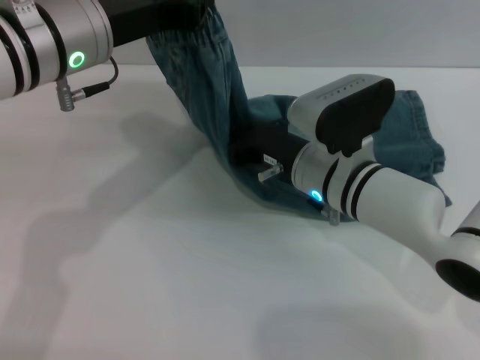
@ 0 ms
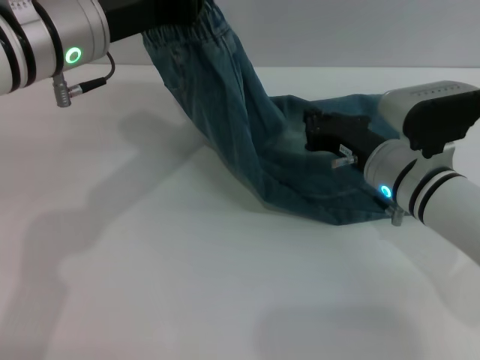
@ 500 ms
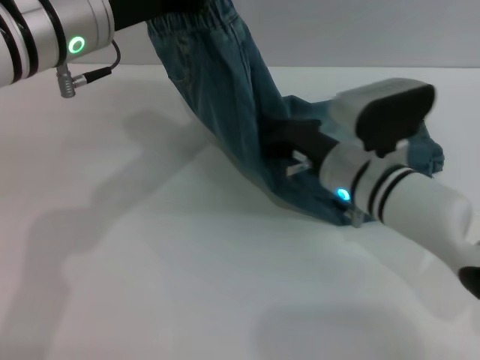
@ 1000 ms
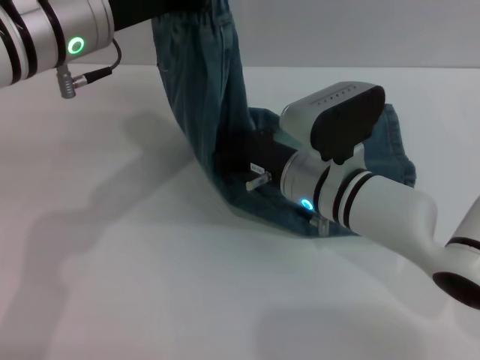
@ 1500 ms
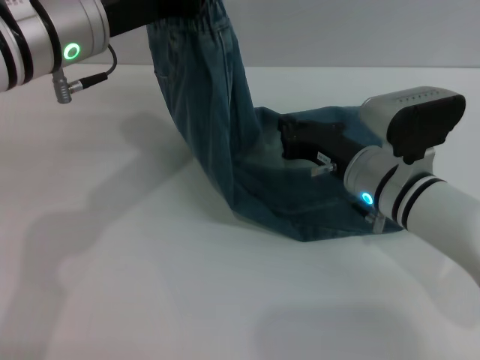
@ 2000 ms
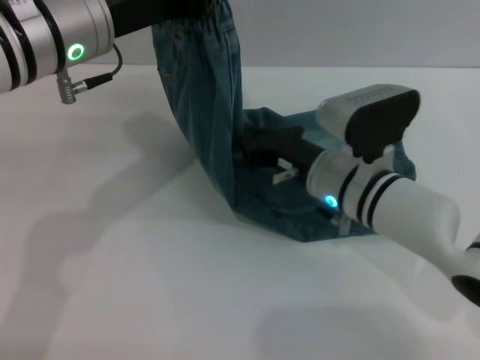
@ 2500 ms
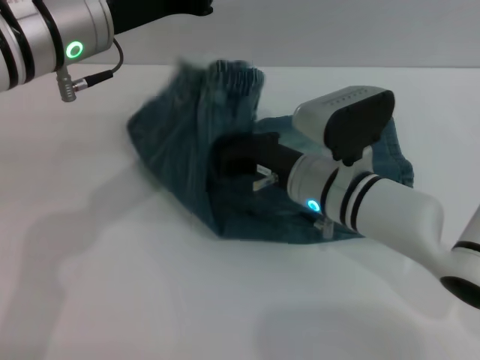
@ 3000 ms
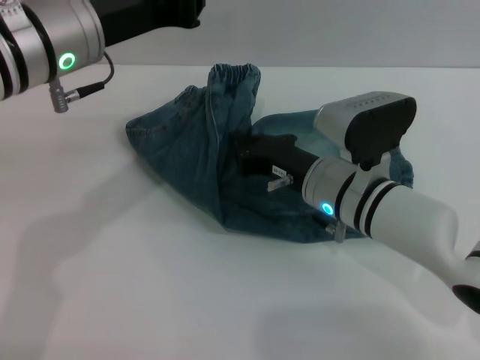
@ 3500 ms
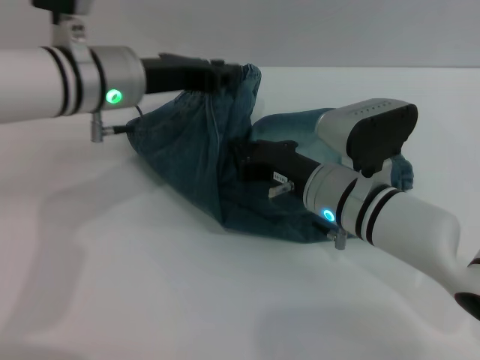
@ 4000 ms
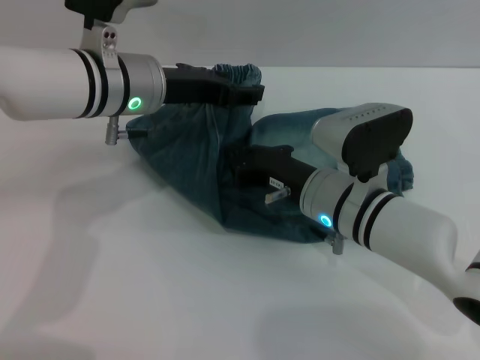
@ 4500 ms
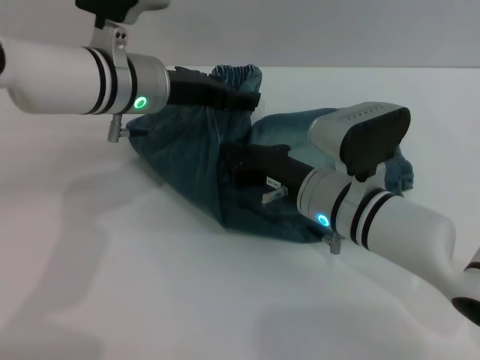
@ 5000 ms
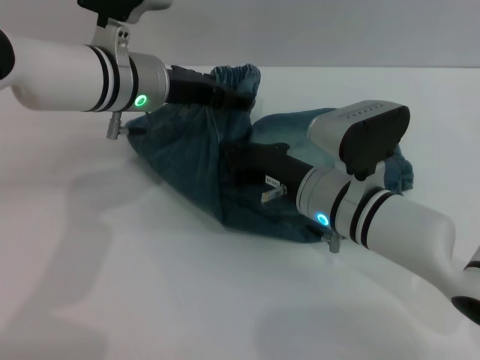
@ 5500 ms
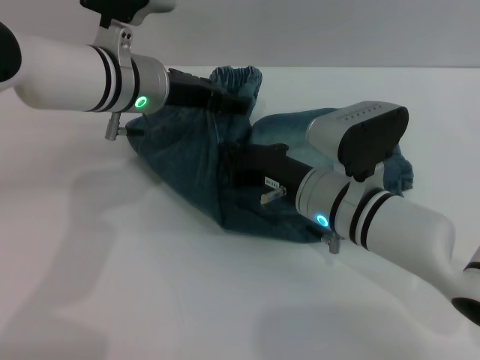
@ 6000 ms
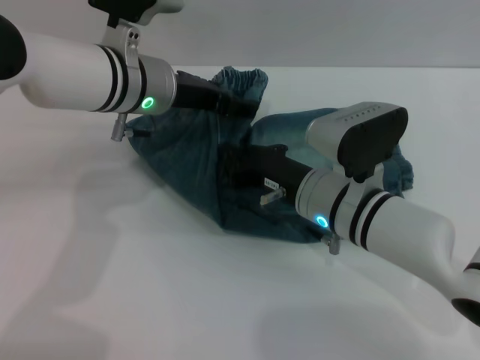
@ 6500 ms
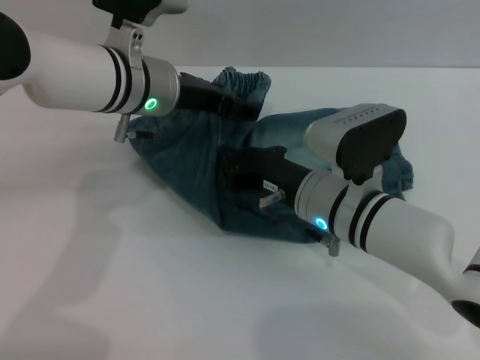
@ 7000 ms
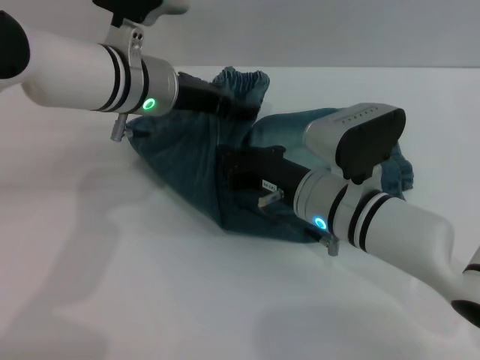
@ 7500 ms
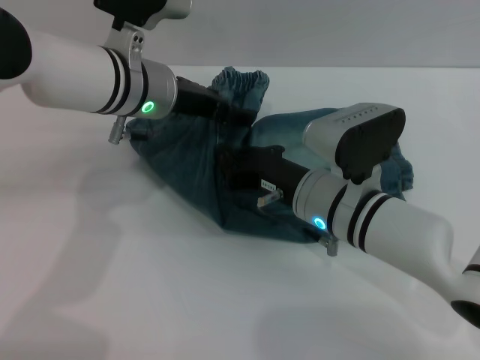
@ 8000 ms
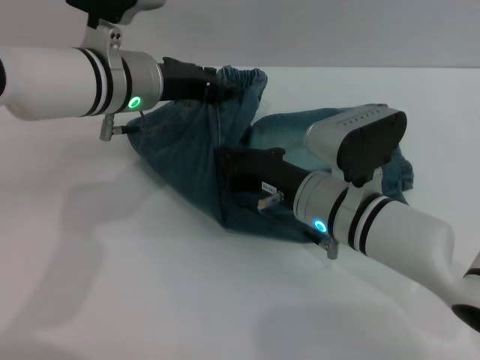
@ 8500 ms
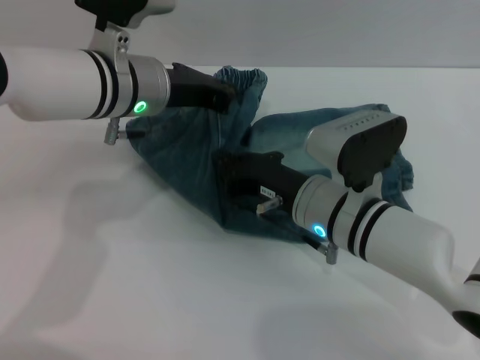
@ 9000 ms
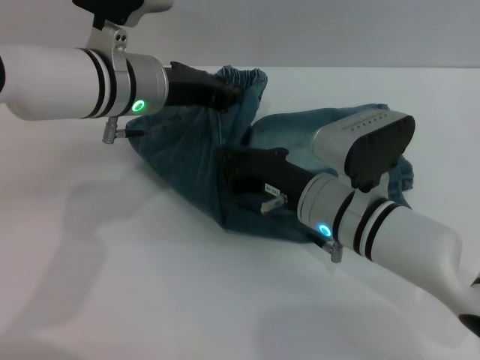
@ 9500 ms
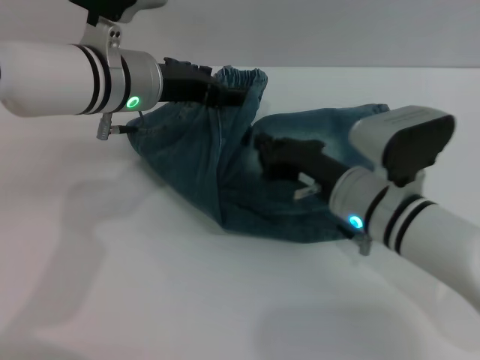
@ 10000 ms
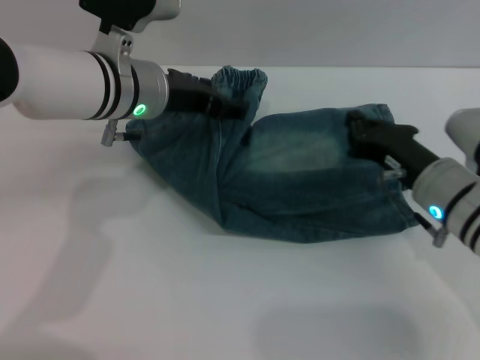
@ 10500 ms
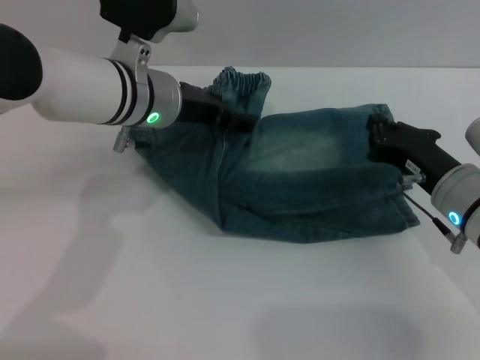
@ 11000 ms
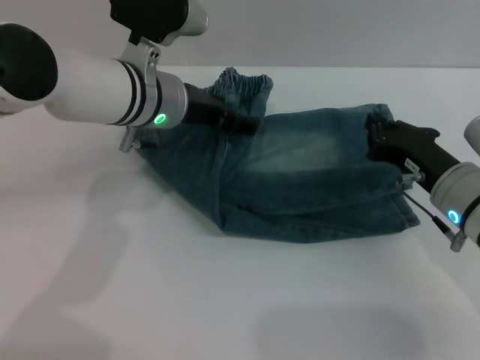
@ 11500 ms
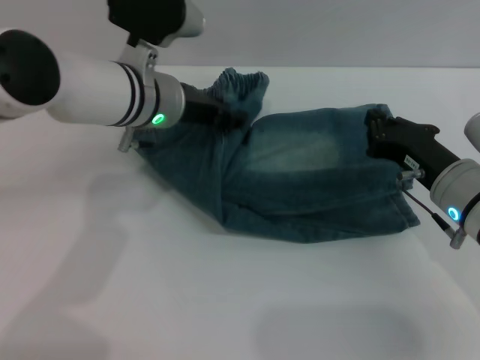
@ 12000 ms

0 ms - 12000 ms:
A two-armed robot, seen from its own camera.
0 ms - 2000 ms: The right gripper swings left and right, some 10 cm each way, with 2 reversals.
2000 ms - 4000 ms: The left gripper shifts approximately 5 cm downward.
4000 ms - 6000 ms: The left gripper opens up.
6000 ms - 8000 ms: Both grippers stay about where they are.
8000 ms - 10000 ms: The left gripper closes its fingers.
10000 ms - 12000 ms: The right gripper heads to the right, covering some 10 cm.

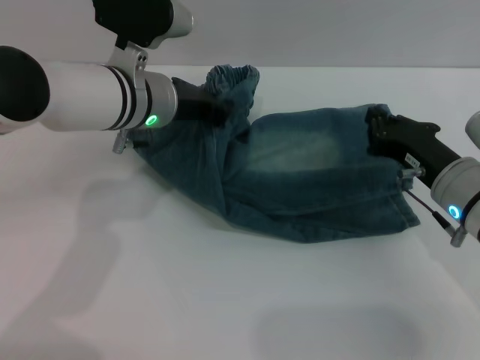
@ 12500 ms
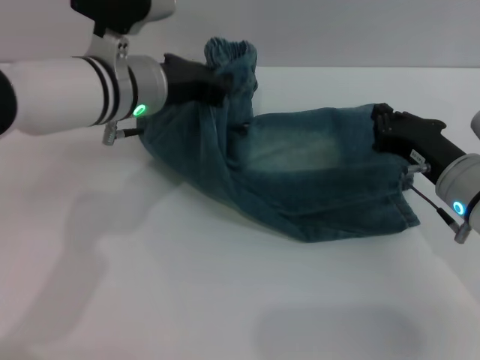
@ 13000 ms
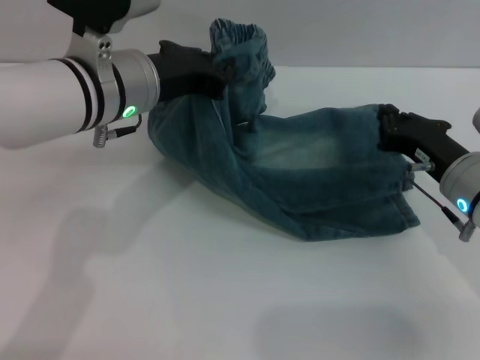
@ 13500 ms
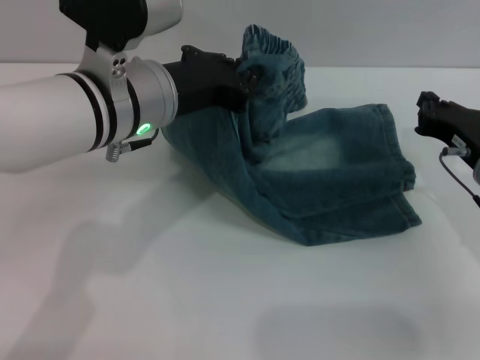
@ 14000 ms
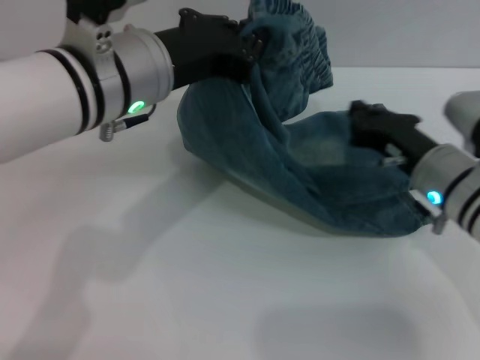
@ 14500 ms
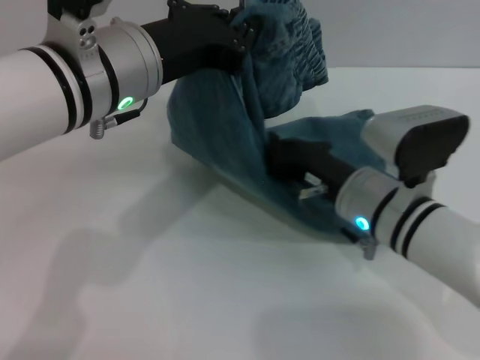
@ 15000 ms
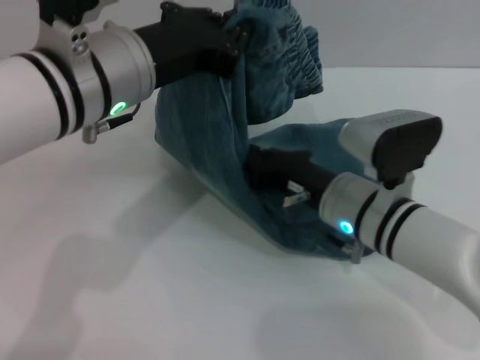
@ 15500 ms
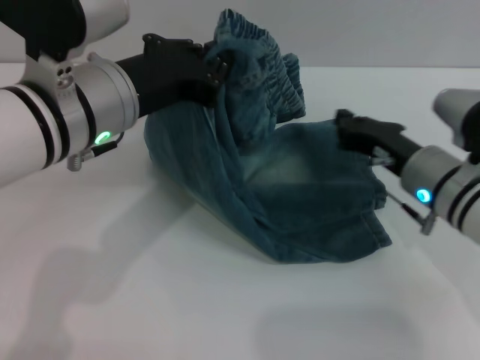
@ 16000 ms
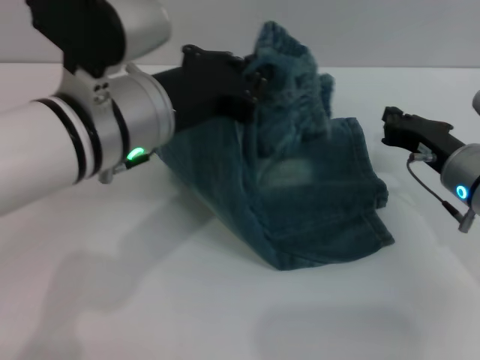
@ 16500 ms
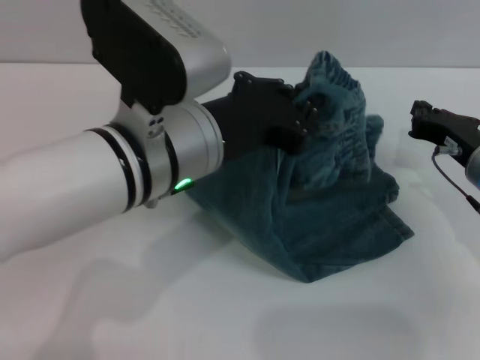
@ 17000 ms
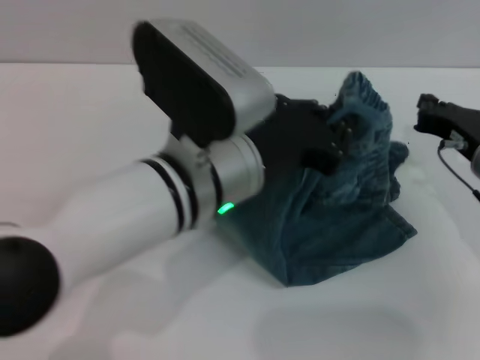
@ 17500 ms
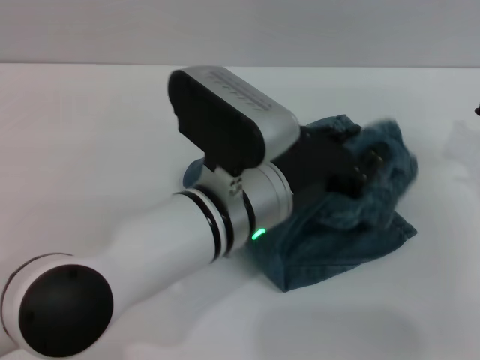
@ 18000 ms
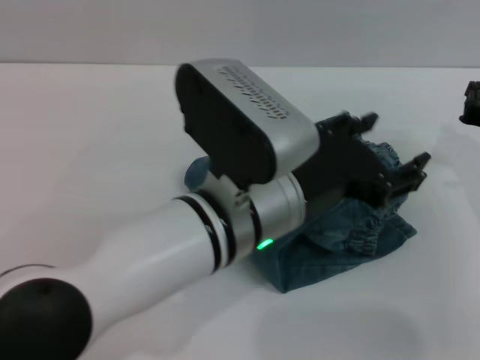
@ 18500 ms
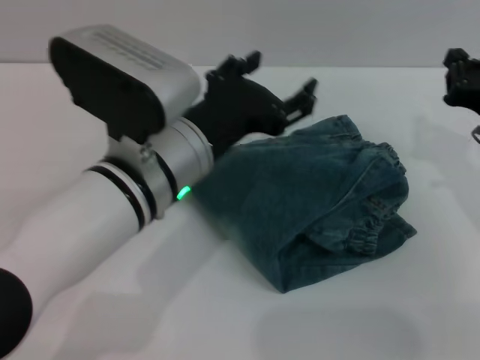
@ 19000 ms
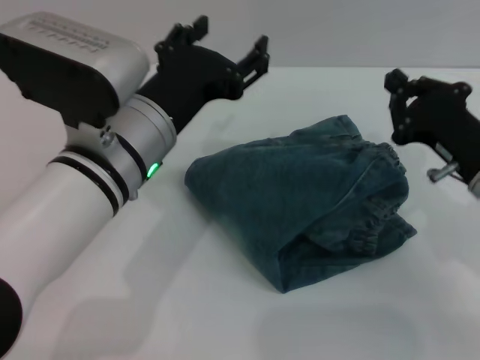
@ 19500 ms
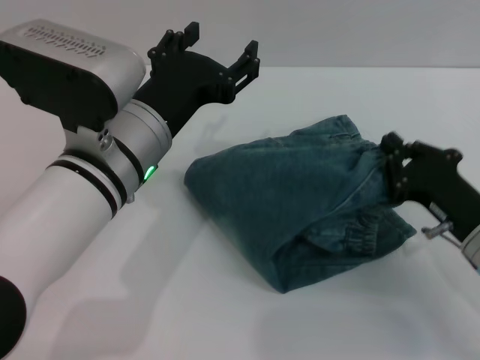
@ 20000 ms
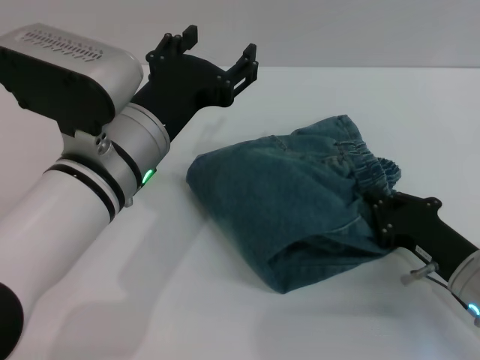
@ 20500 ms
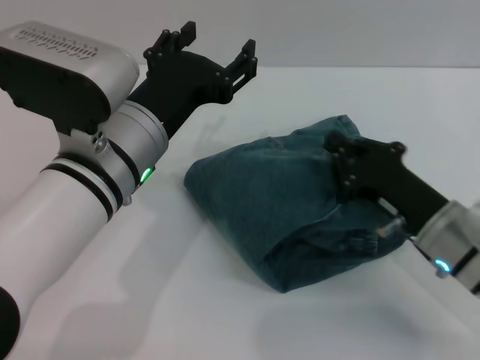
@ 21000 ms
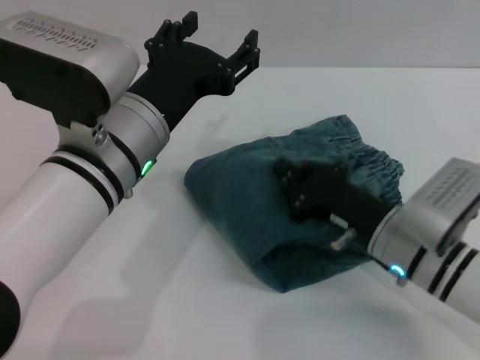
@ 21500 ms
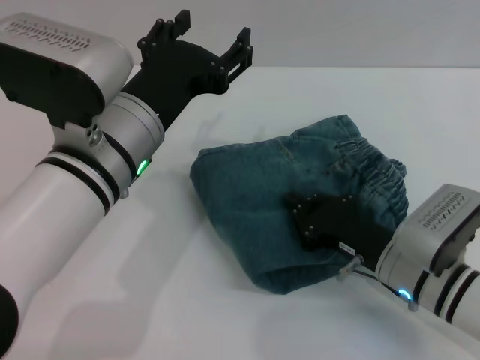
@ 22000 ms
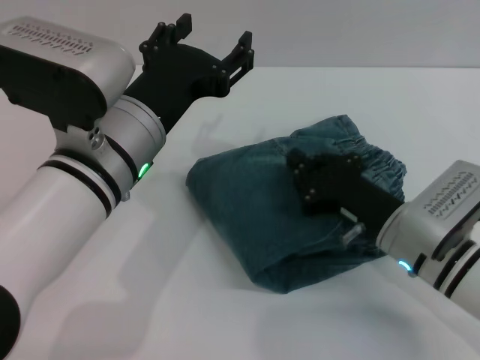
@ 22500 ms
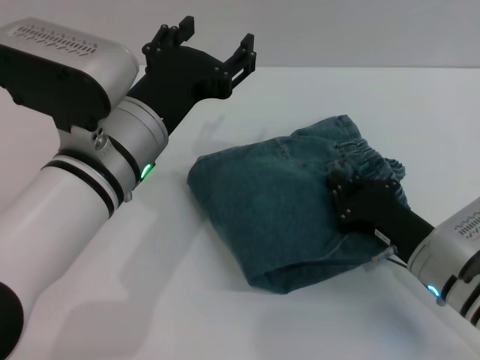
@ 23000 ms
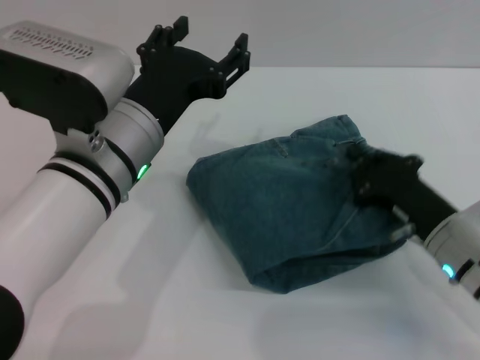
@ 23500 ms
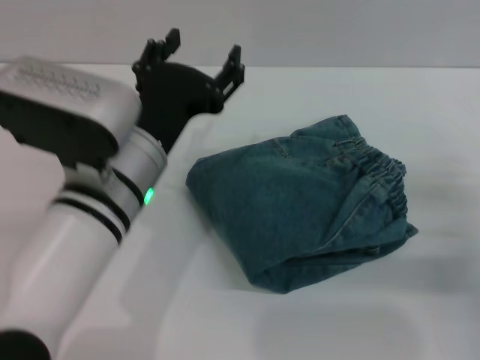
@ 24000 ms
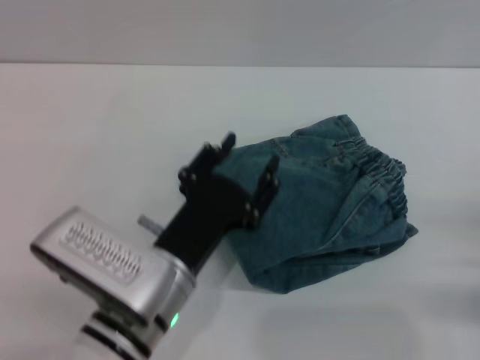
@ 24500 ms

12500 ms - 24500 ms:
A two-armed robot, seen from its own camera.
Step, 12500 ms - 18500 ms: Fold the pants from left to right with the left gripper.
12500 ms - 14500 ms: The left gripper travels backward and upward by approximately 10 cm.
14500 ms - 16500 ms: The right gripper moves approximately 10 cm to the left and comes back.
16500 ms - 18500 ms: The left gripper travels to the right by roughly 10 cm, and opens its fingers, while the right gripper shifts roughly 5 cm to the right.
18500 ms - 20500 ms: The left gripper travels to the left by some 10 cm, and opens its fingers; the right gripper goes about 10 cm downward and backward.
20500 ms - 22500 ms: The right gripper moves to the left, some 5 cm.
22500 ms - 24500 ms: The right gripper goes roughly 20 cm to the right and backward; the left gripper goes roughly 15 cm downward and backward.

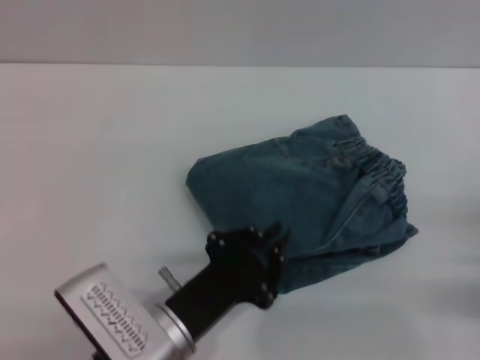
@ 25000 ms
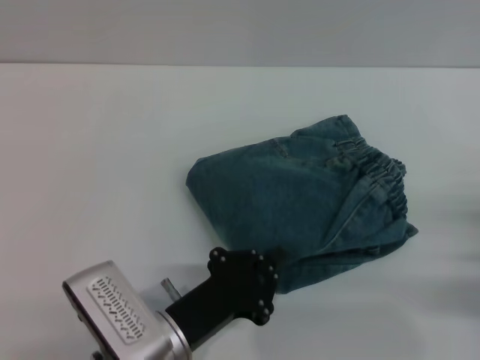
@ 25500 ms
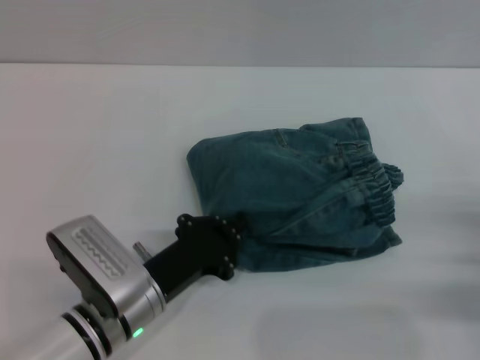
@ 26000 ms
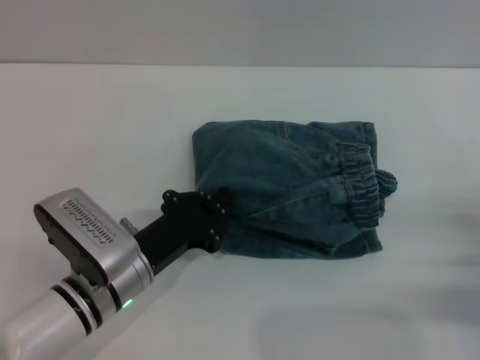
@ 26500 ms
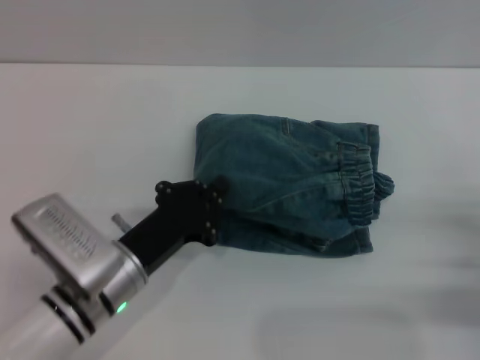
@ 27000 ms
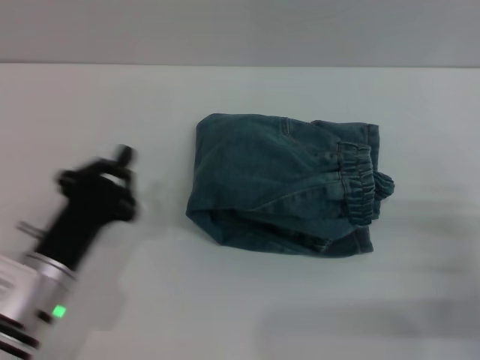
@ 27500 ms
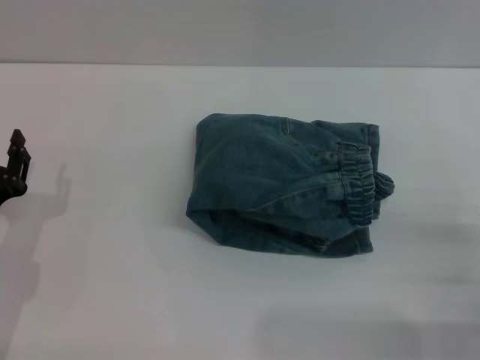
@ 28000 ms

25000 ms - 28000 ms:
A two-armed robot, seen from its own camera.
Step, 25000 ms - 27000 ms: Place the folded trousers onto the center area with the left grippers.
25000 ms - 26500 ms: The left gripper travels forward by approximately 5 cm.
26500 ms - 28000 ms: The left gripper goes approximately 15 cm to the left.
